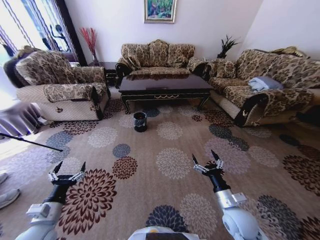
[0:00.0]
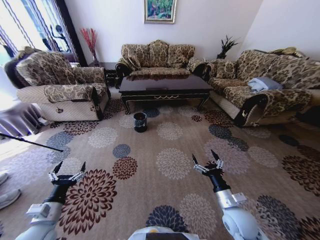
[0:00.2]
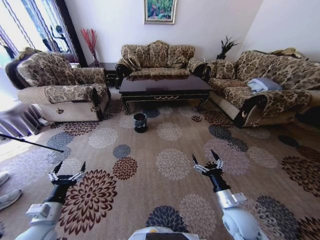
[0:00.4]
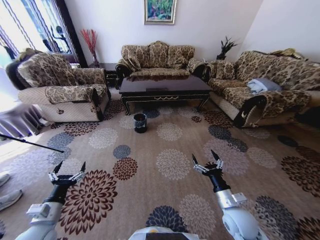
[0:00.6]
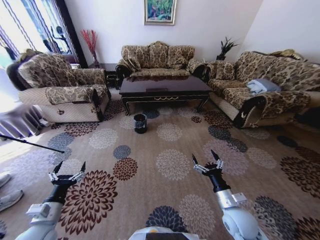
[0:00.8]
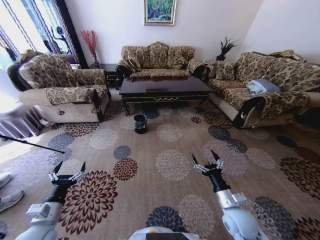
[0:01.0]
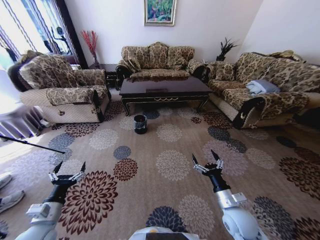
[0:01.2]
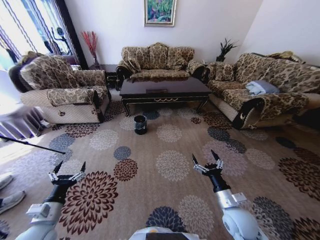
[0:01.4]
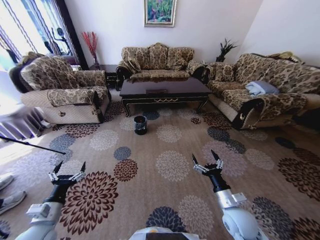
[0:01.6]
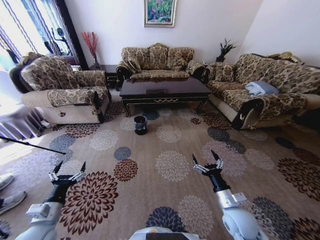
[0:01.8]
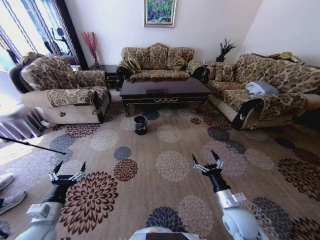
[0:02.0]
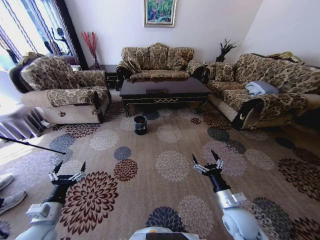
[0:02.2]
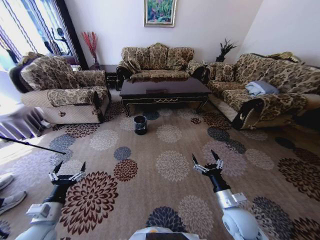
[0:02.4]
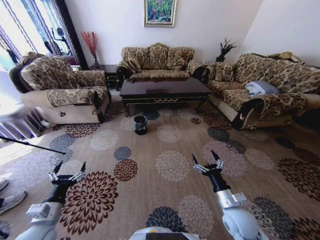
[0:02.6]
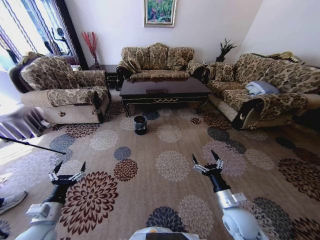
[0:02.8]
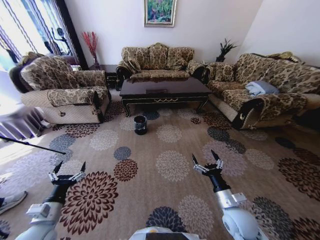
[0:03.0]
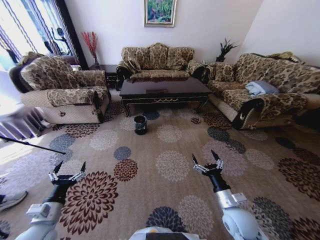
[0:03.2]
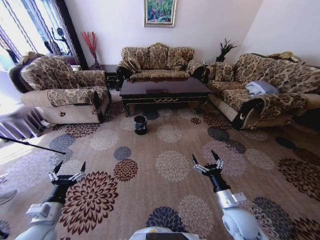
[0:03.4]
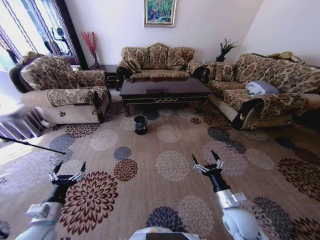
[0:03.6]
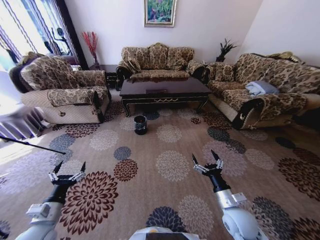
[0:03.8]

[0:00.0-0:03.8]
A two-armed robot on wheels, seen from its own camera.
Task of the whole recording: Move to the front of the table and pick up the trash from the floor, then place it into the trash bin.
0:00.0 to 0:03.8: Both grippers stay about where they are.

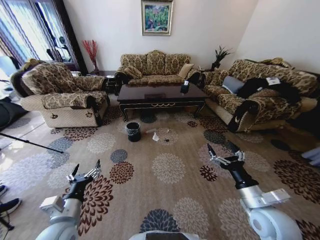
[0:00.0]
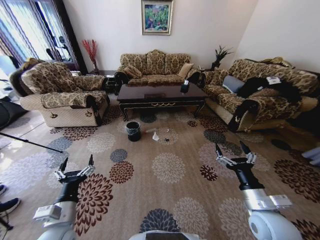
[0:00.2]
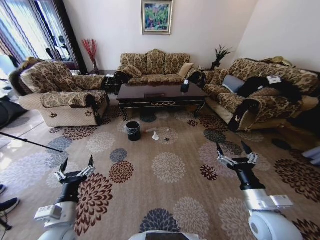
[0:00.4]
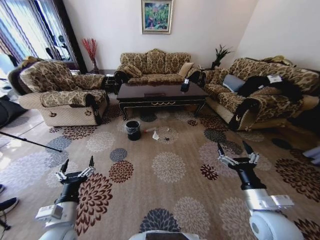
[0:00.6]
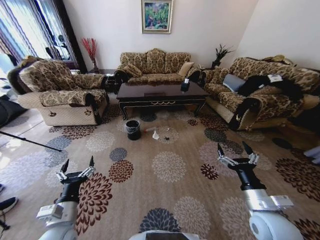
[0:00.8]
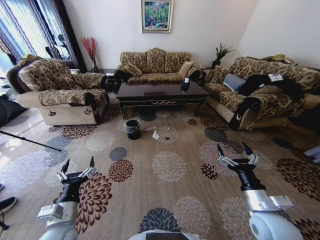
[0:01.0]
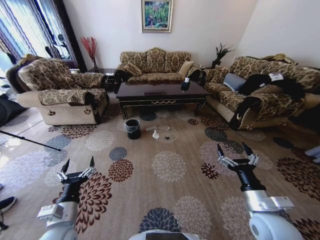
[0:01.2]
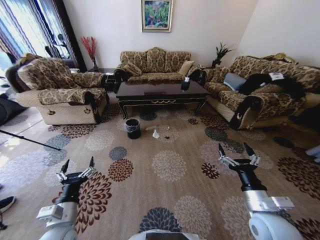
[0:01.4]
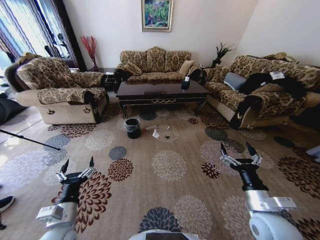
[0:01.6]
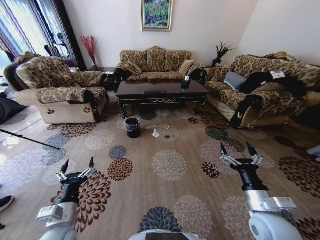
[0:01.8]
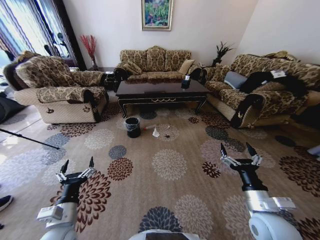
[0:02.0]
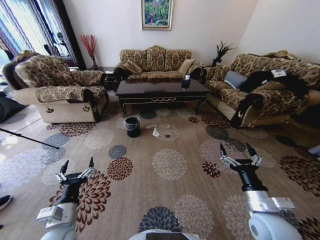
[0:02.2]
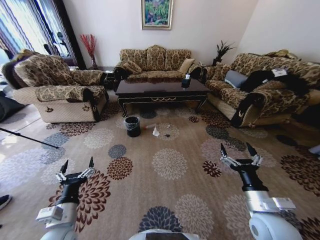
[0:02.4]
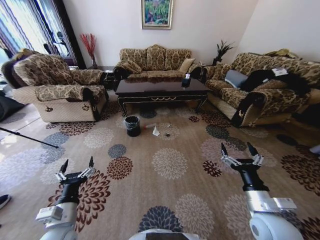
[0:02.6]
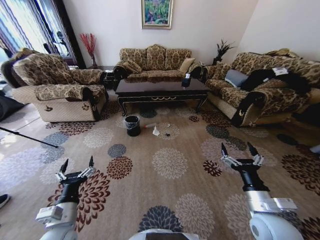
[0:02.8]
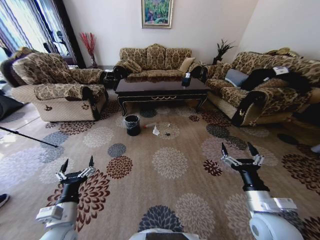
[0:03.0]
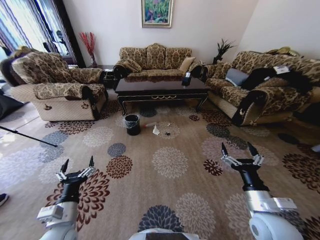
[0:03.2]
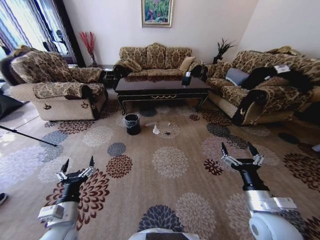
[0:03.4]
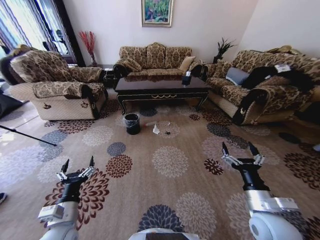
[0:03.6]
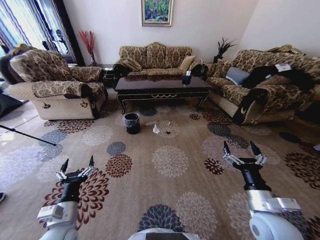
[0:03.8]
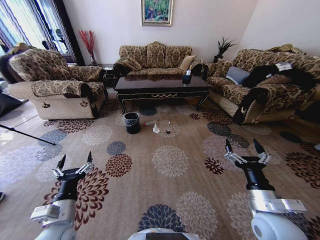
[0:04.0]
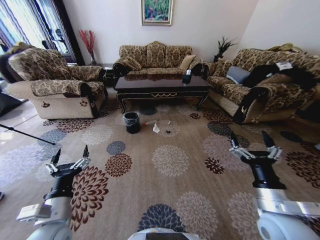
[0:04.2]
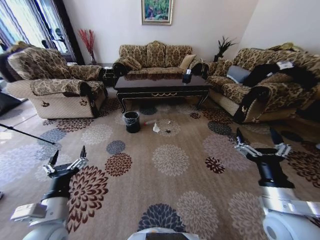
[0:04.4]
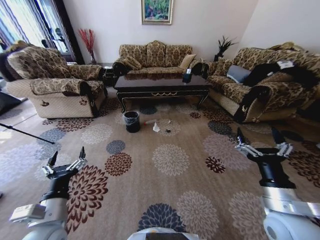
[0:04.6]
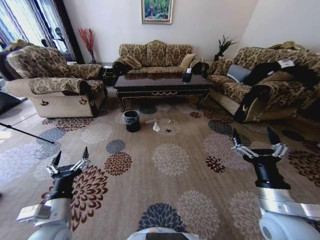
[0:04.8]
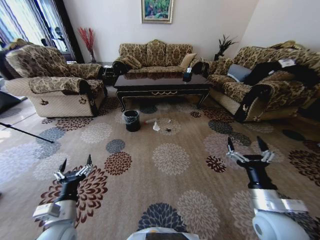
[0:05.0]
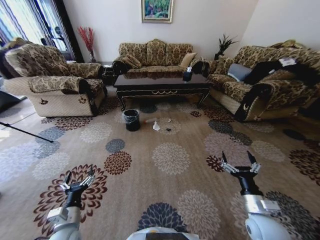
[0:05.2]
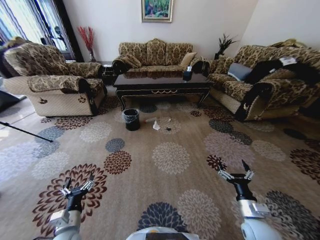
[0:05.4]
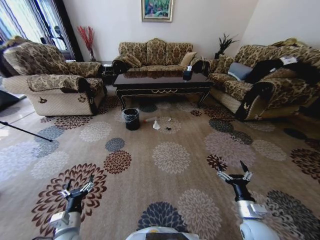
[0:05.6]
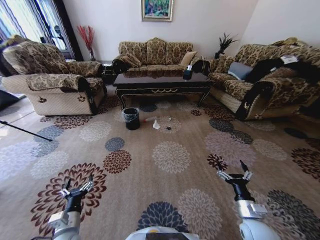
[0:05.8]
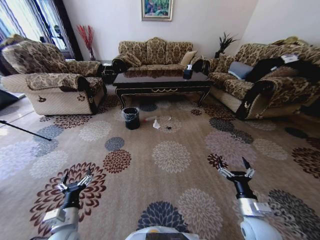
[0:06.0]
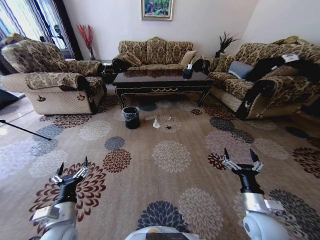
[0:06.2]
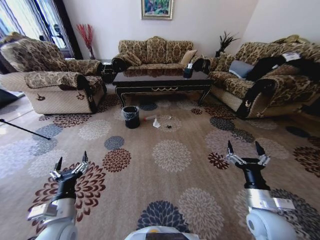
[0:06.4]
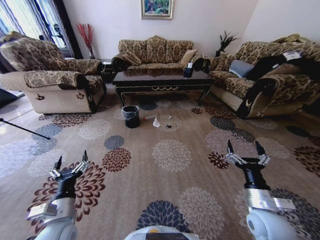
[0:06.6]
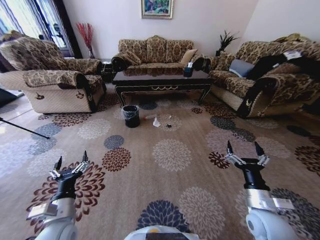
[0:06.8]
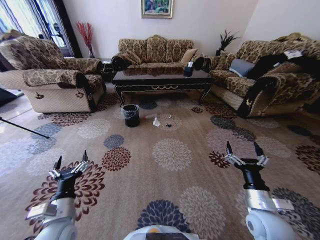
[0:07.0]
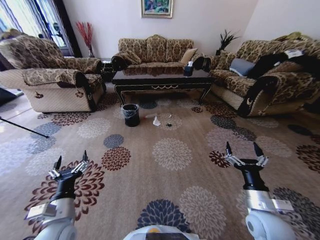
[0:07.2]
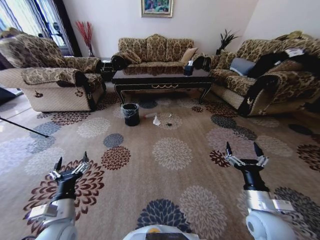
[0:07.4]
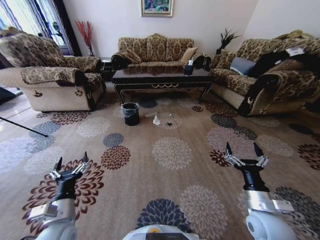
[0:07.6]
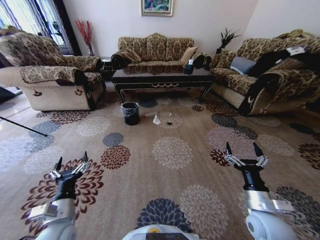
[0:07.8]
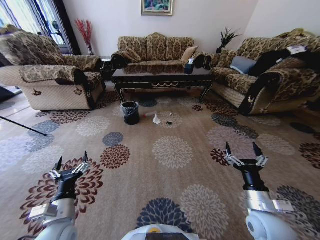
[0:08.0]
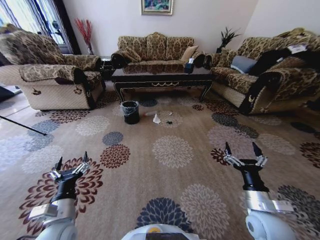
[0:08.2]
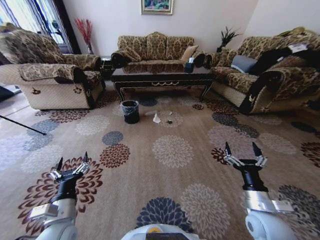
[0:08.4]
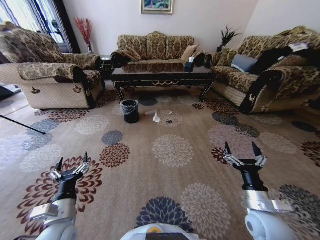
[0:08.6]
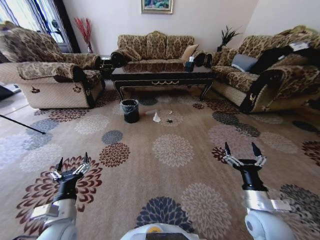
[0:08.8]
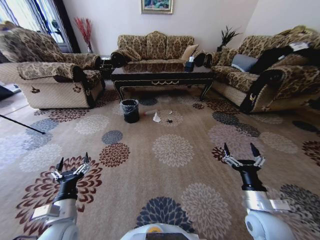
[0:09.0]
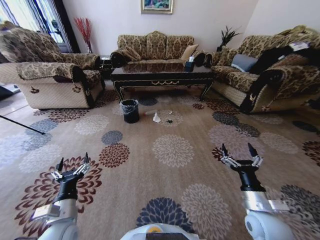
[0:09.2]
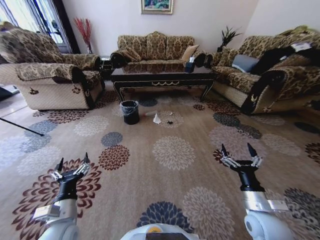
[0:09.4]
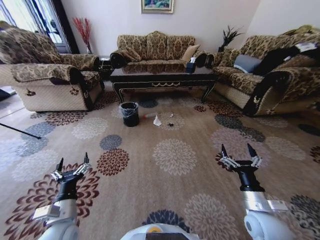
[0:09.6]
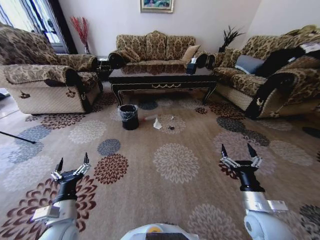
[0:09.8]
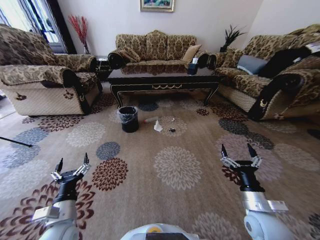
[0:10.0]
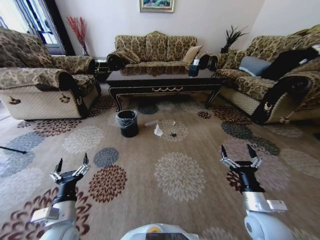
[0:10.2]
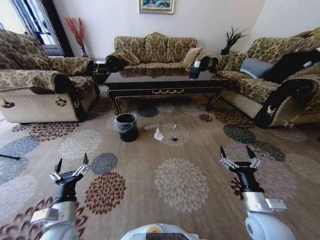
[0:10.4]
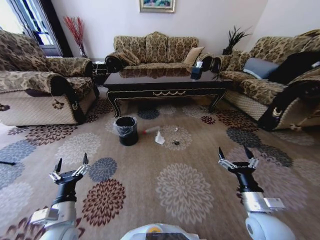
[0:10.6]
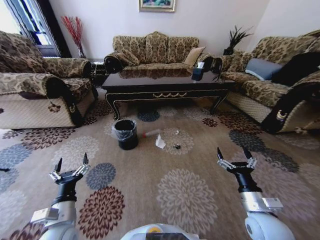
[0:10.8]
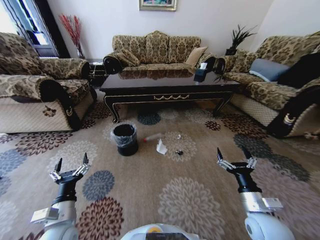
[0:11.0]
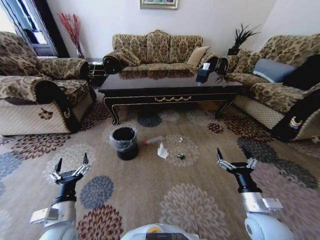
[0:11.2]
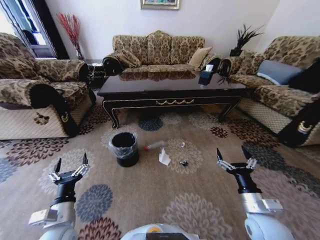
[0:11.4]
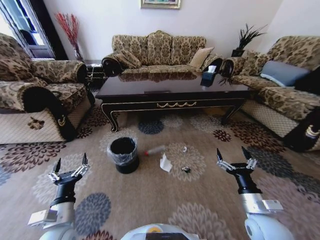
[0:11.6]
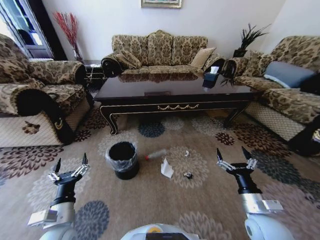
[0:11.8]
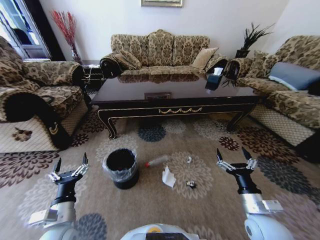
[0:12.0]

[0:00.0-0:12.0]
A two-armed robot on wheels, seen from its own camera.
Task of the whole recording: Move to the front of the table and pick up the trash from the floor, then place it into the trash bin.
0:03.0 to 0:04.4: The two grippers go approximately 5 cm upward.
0:04.4 to 0:06.0: The two grippers go roughly 15 cm downward.
0:06.0 to 0:07.6: Both grippers move upward, some 5 cm.

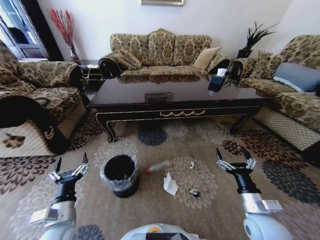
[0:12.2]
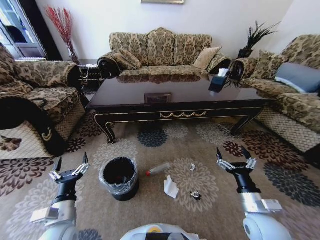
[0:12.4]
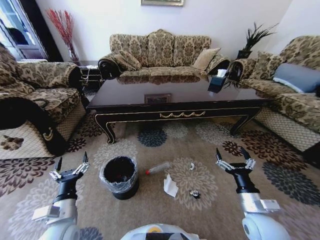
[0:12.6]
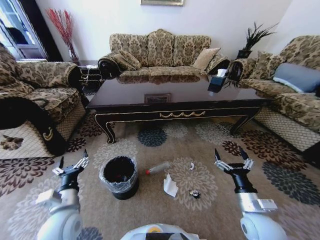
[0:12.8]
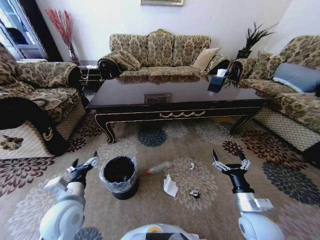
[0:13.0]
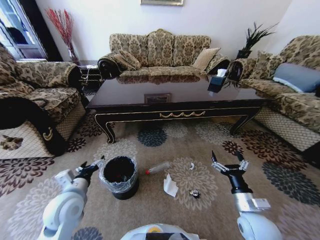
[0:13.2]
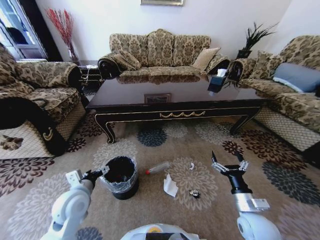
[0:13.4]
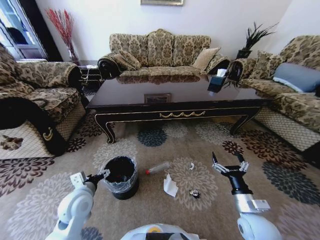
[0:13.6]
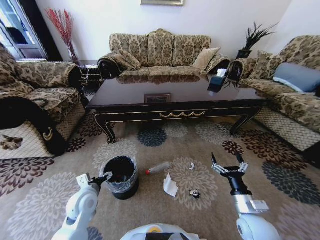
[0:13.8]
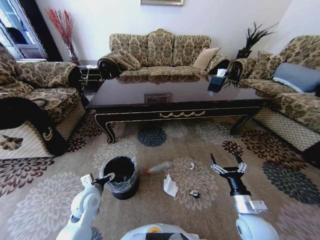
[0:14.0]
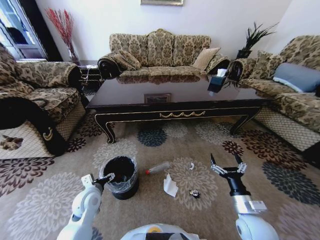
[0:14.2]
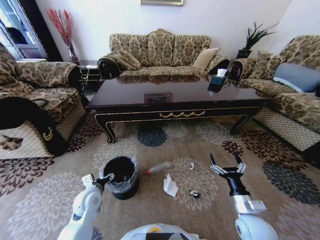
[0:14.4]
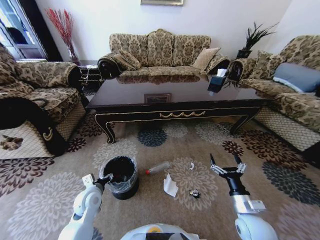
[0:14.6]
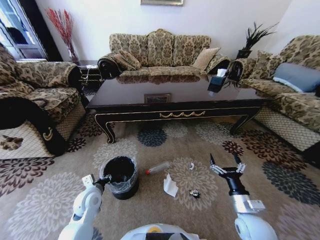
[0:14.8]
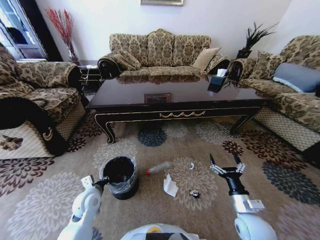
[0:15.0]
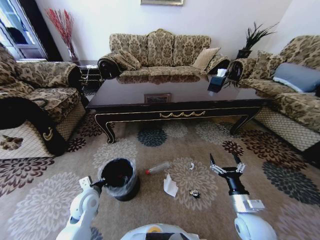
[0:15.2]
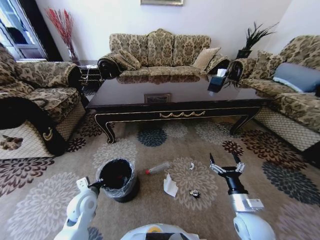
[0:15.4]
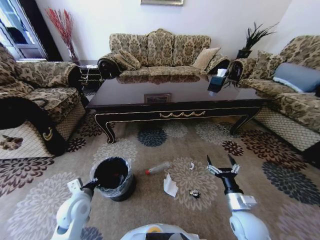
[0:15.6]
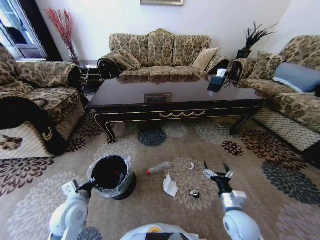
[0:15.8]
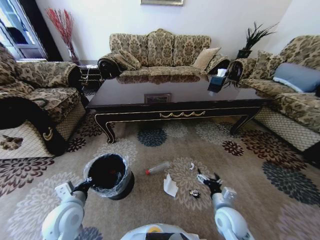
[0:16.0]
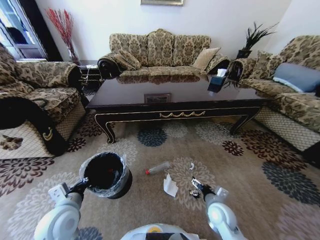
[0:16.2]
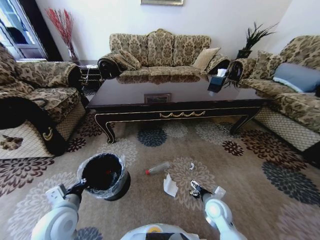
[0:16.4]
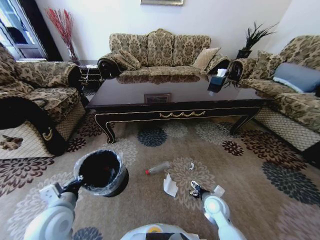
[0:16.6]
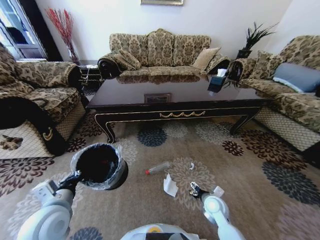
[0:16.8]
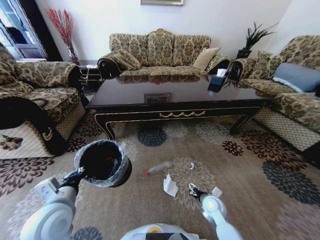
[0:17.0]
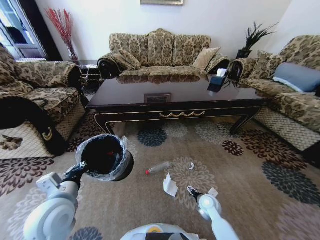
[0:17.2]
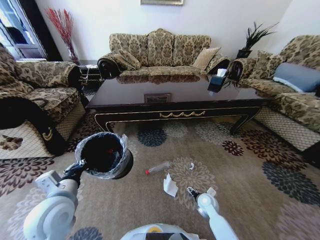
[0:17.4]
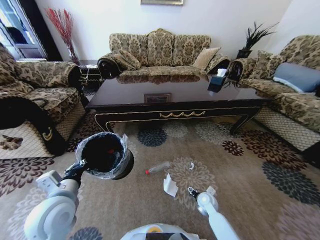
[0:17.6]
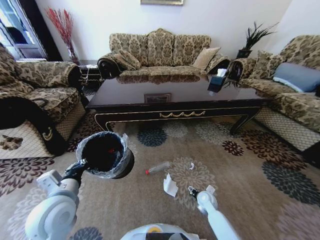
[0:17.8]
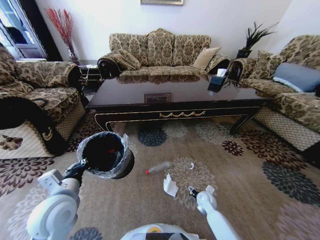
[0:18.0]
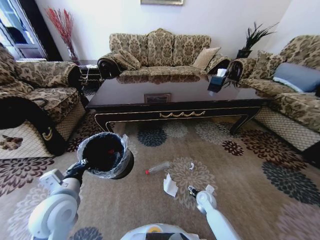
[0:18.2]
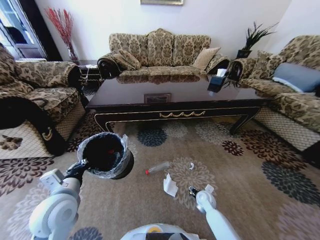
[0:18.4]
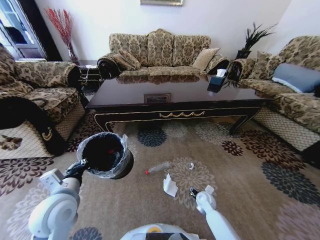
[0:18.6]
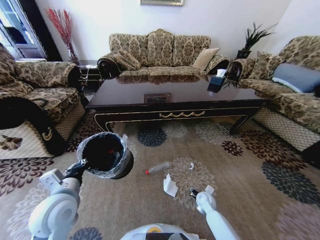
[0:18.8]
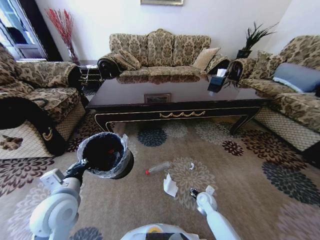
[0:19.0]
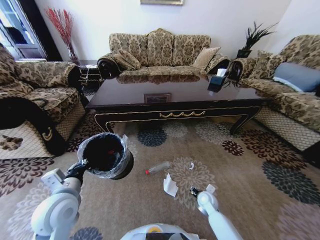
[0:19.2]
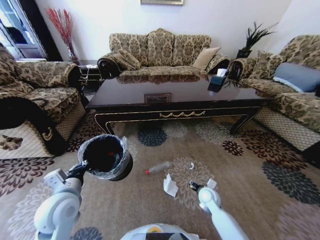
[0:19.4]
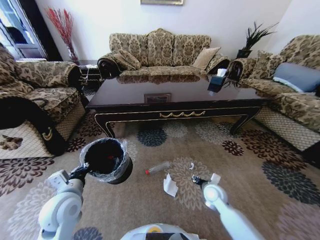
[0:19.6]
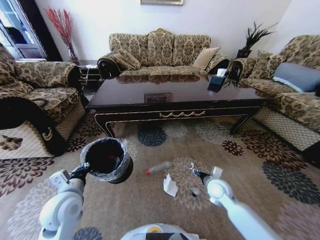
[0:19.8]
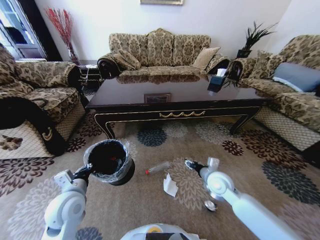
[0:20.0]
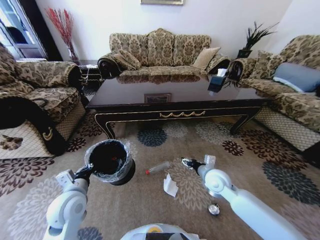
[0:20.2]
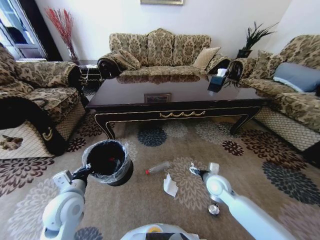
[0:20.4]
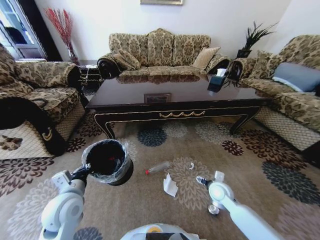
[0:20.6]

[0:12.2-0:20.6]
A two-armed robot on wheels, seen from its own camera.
Task of the whole recording: Move to the front of the table and pick up the trash from the floor, then place it into the trash bin.
0:12.2 to 0:13.6: The left gripper travels forward by approximately 10 cm.
0:13.6 to 0:15.0: The left gripper moves downward, roughly 5 cm, and closes its fingers.
0:15.0 to 0:16.4: The left gripper travels upward and backward by some 10 cm, while the right gripper travels to the left, forward and downward by roughly 10 cm.
0:16.4 to 0:17.8: The left gripper moves upward, approximately 5 cm; the right gripper shifts roughly 10 cm downward and forward.
0:17.8 to 0:19.2: The grippers move only a little.
0:19.2 to 0:20.6: The right gripper travels upward by about 10 cm.
